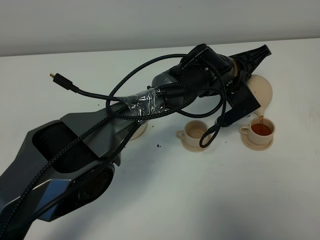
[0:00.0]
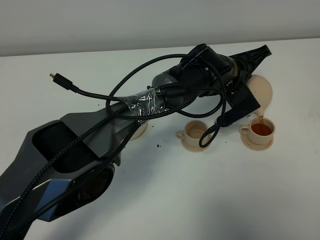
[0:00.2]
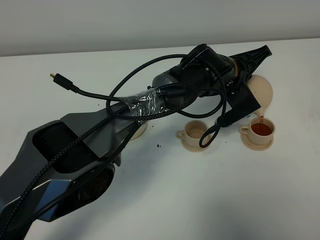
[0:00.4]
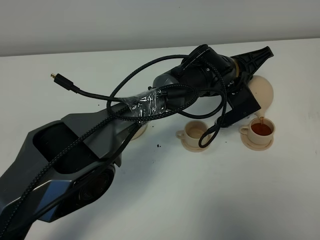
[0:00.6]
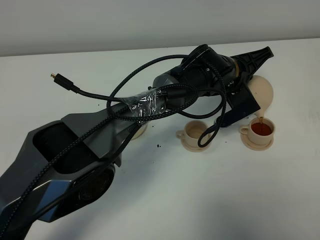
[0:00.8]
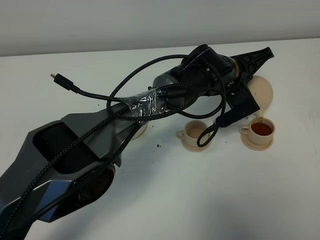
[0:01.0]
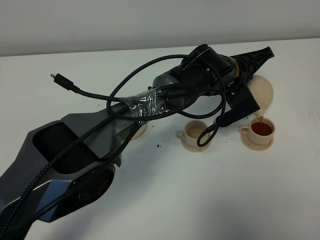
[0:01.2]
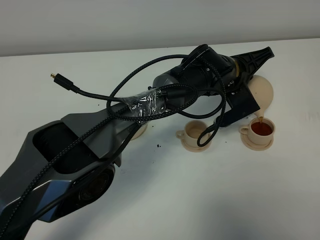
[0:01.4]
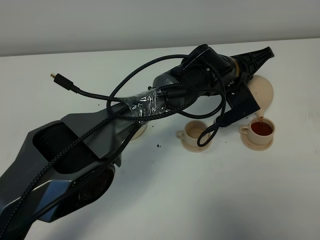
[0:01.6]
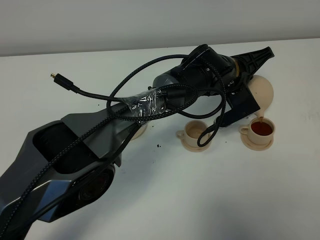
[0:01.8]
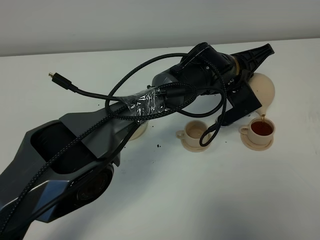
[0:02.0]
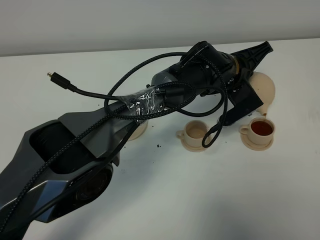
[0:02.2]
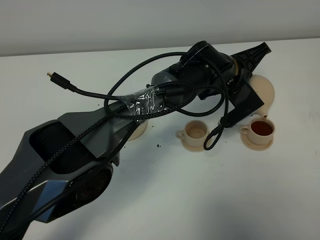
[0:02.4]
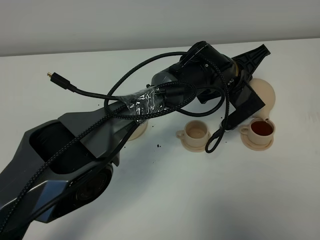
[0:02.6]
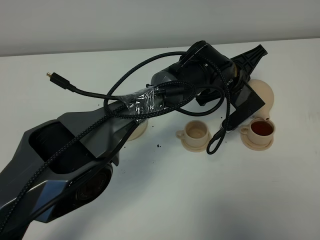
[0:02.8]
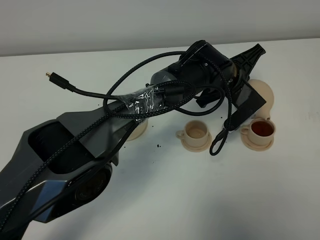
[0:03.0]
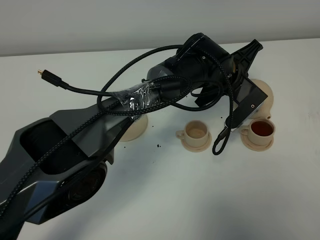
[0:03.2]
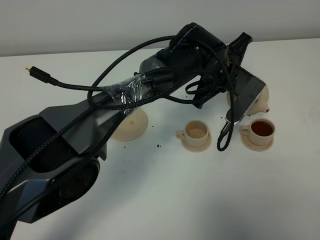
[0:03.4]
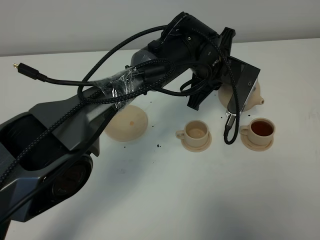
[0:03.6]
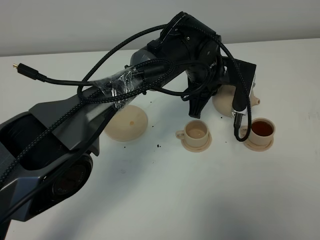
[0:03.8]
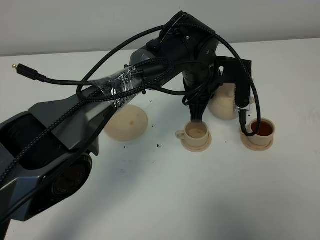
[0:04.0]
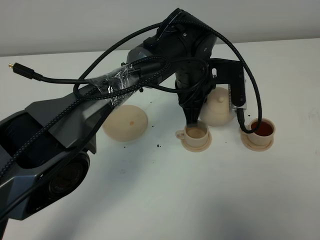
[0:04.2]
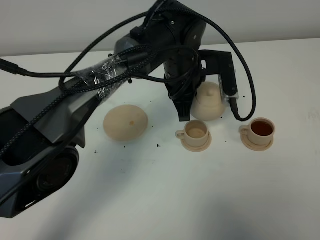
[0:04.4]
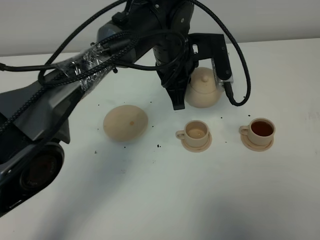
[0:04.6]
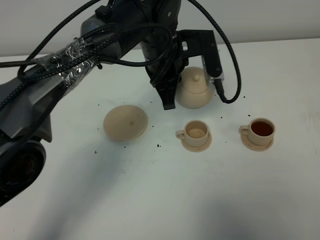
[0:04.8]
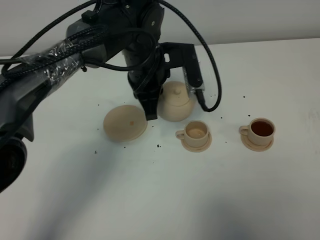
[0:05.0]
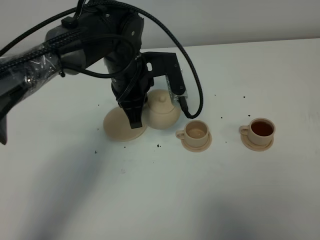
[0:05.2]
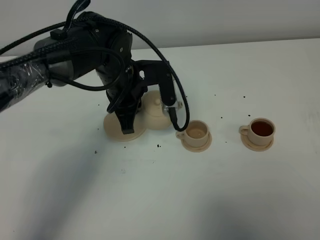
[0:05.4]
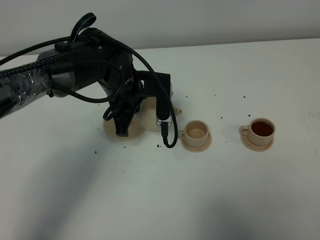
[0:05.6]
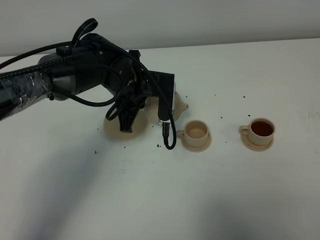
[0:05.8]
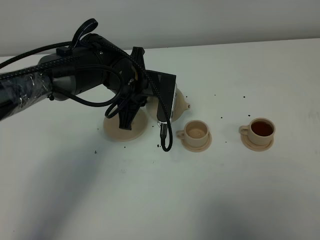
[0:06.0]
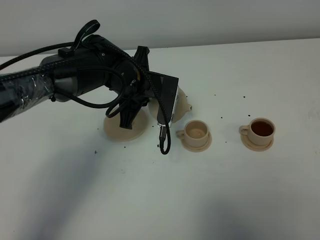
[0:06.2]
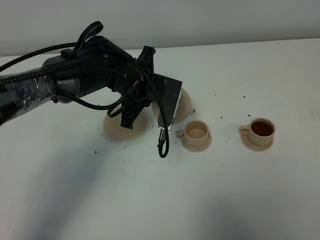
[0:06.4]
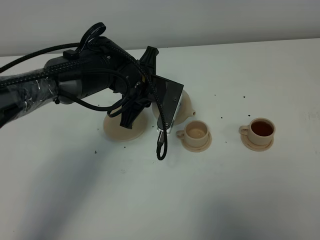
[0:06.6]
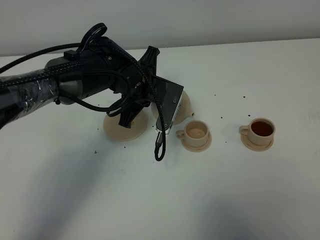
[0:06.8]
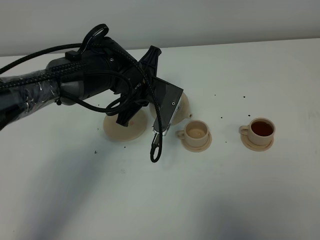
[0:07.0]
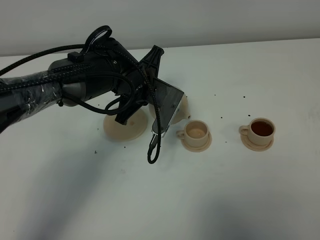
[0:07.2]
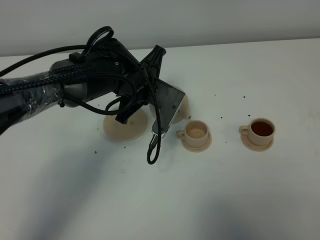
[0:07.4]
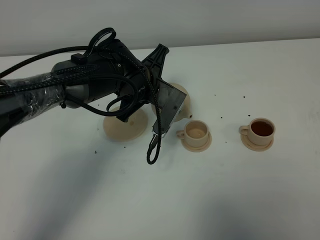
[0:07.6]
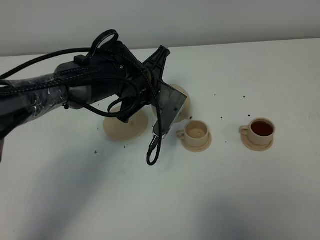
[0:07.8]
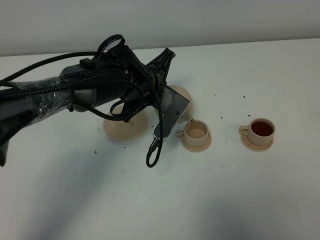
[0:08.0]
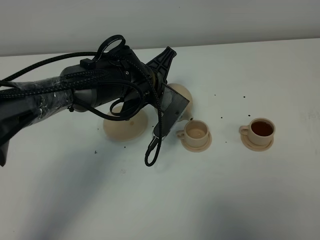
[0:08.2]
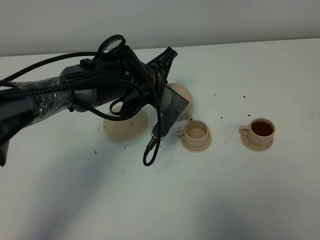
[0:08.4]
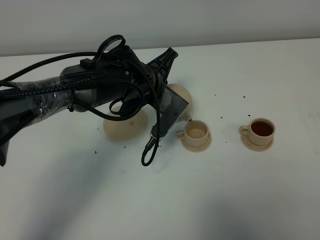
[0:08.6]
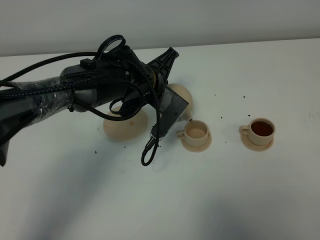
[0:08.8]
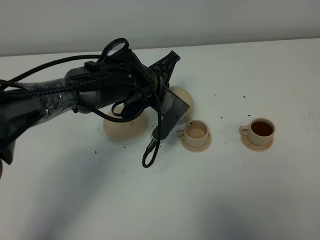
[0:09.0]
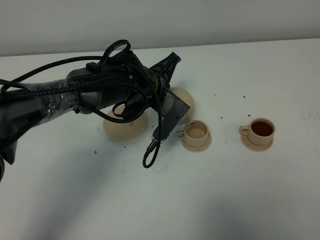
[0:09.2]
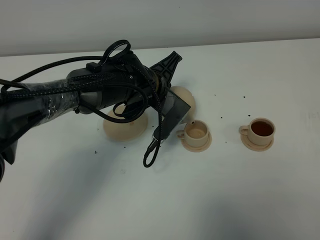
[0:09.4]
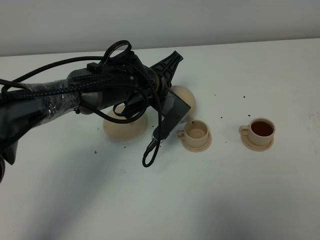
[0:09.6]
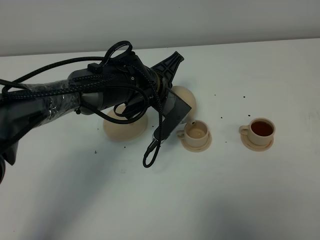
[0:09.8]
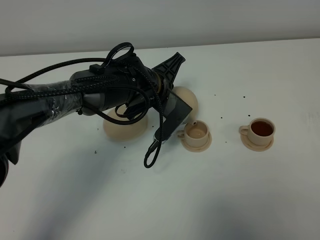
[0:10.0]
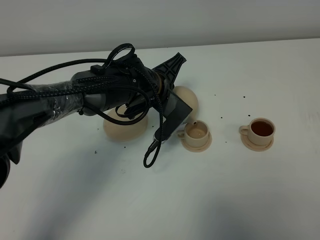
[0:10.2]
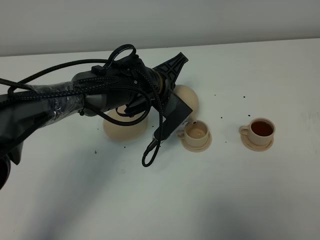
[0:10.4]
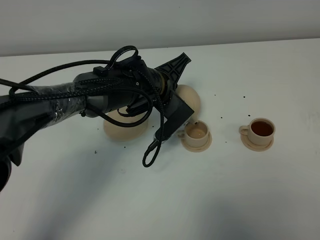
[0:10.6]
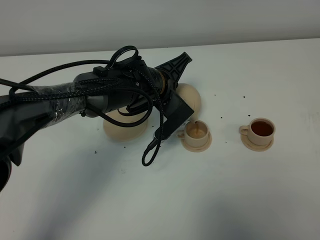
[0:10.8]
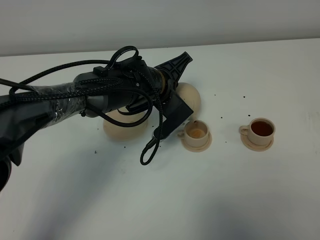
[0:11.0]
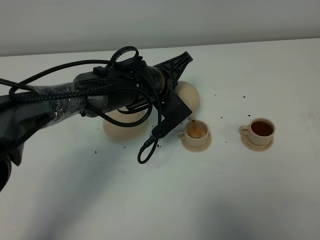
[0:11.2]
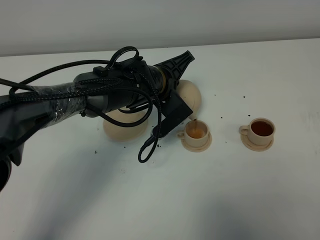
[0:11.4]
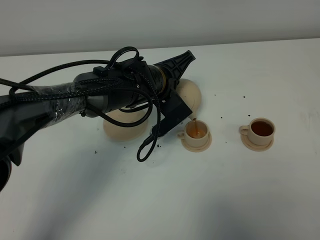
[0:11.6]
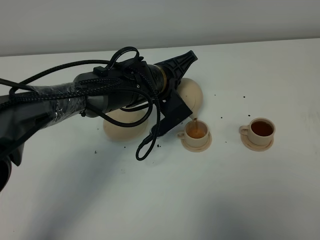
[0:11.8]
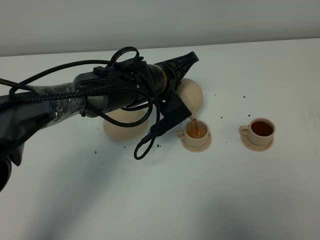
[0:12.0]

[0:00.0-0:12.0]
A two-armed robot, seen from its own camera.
Task of the whole recording: grasp the brown teapot and pour the tea into the two brown teacups one by one, put the brown teapot back in its original place.
Step, 0:00.0 to 0:02.6: Pour tea into the teacup with the left gripper.
0:00.0 to 0:01.6: Both grippers stay about where they are.
0:01.6 to 0:03.0: There are only small adjustments of the grippers.
0:03.0 to 0:04.4: The left gripper is displaced to the left by approximately 10 cm.
0:04.4 to 0:06.0: The left gripper shifts some 10 cm to the left.
0:07.6 to 0:10.4: The grippers move only a little.
0:10.4 to 0:12.0: The grippers move only a little.

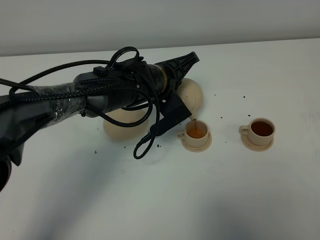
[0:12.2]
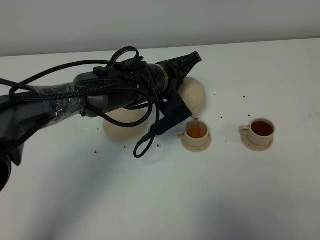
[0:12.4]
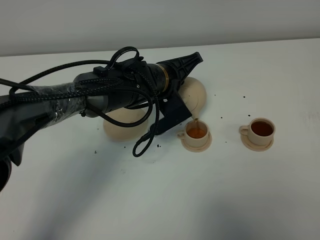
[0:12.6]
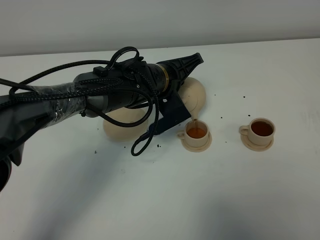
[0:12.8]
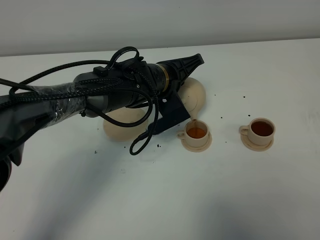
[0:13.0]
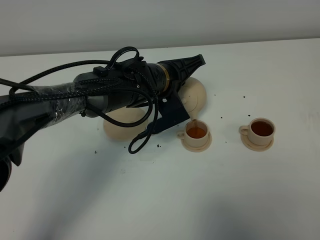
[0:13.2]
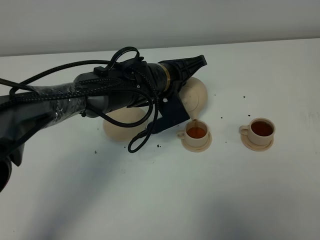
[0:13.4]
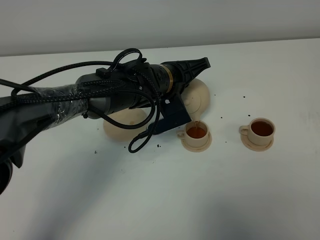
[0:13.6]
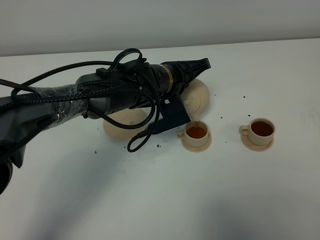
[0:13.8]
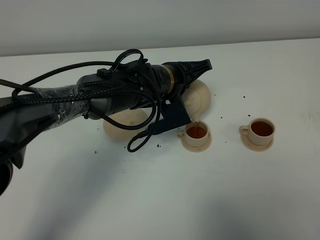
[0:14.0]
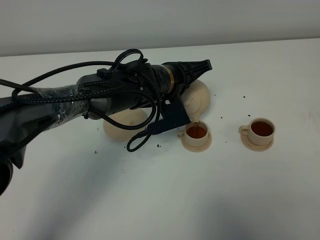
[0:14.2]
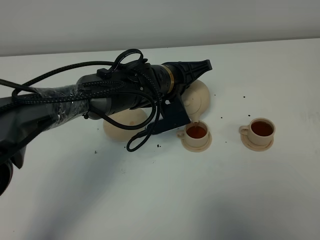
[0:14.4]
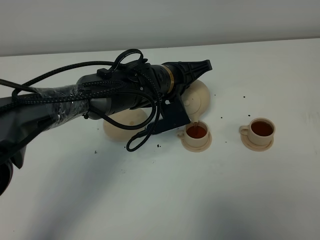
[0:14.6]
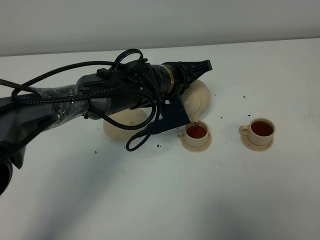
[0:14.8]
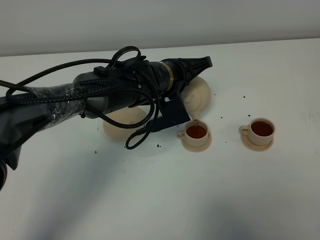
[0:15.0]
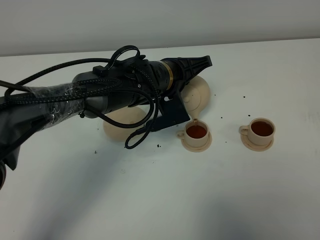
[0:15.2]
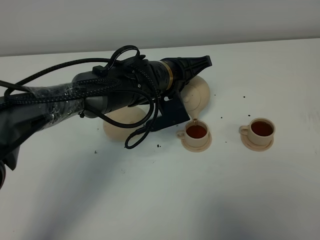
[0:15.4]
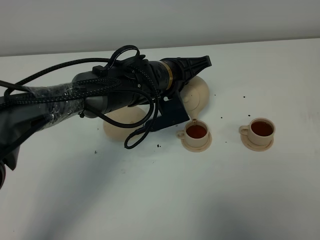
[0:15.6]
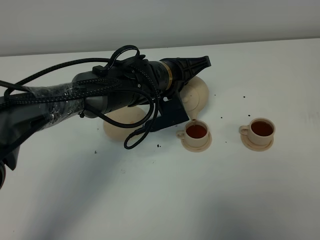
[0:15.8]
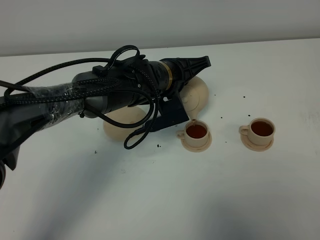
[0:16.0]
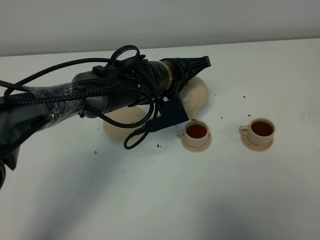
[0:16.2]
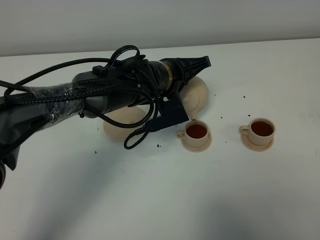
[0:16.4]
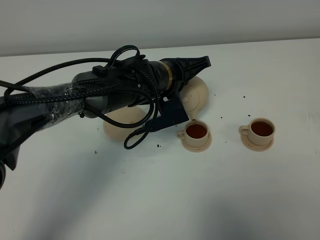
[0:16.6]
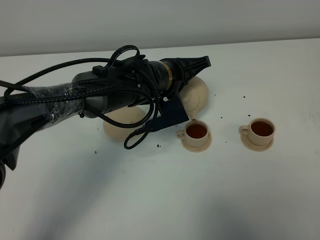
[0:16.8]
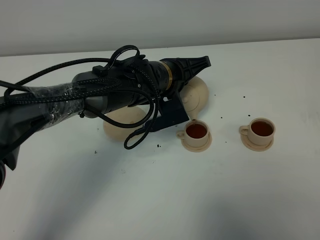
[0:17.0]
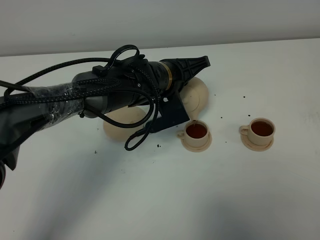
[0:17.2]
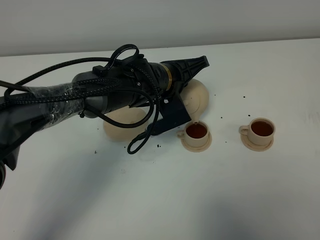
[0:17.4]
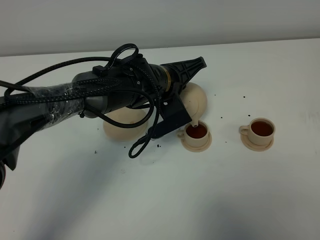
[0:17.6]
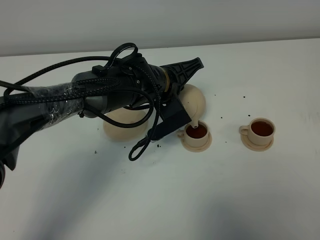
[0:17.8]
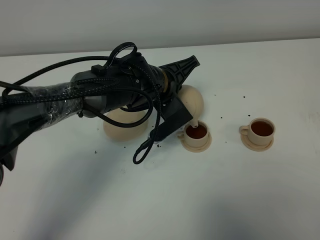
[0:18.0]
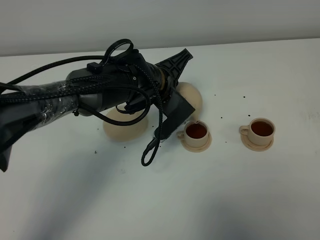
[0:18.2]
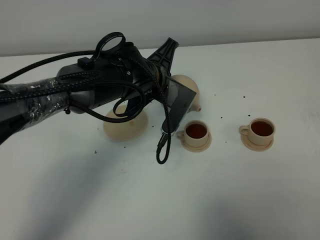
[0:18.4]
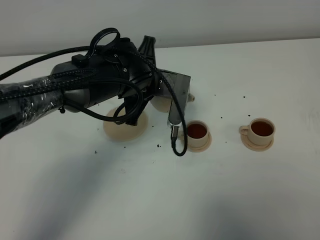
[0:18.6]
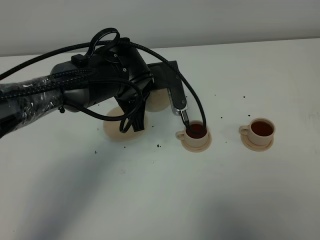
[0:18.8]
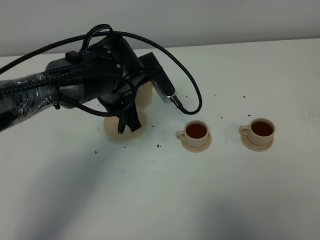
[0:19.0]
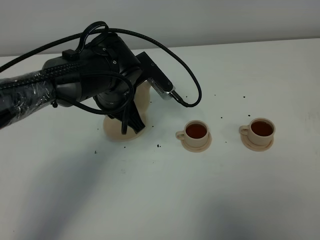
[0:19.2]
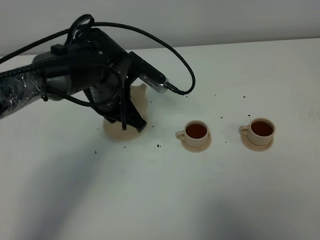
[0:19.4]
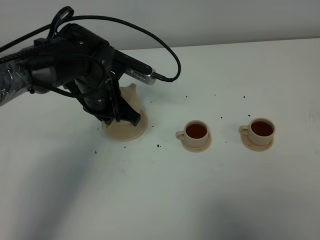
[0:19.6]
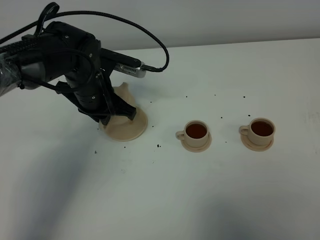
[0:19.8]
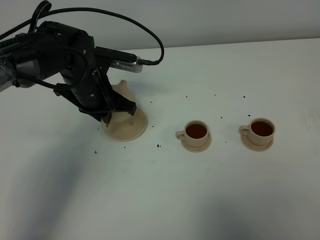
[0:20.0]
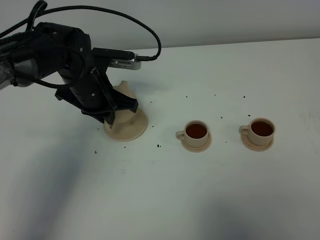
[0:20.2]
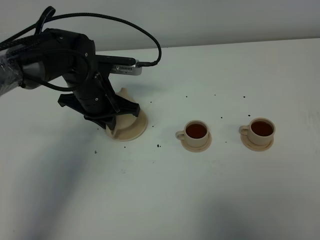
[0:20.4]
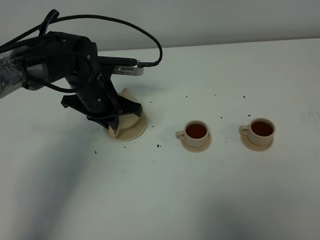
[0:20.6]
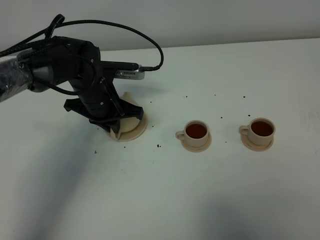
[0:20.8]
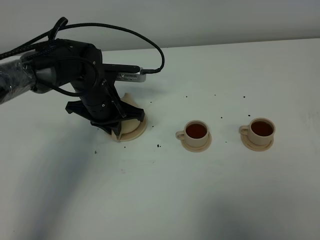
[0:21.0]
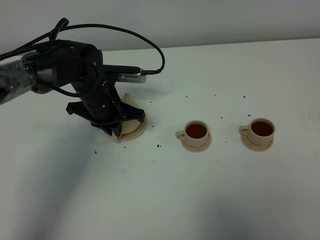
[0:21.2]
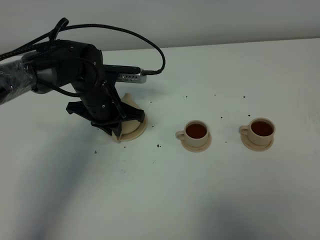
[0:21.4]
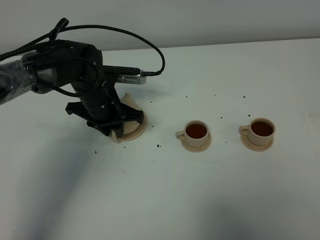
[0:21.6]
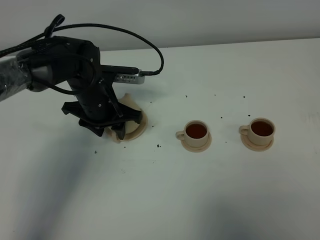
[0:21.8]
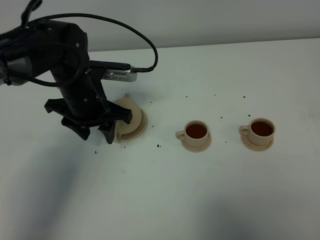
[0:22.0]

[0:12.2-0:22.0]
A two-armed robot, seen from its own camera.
Task of the whole recording: grasp the brown teapot and pour the tea into the two brown teacups one by one, put the brown teapot back in its original place.
Step, 0:12.2 to 0:18.4: Pour tea into the teacup with the left gripper.
0:12.2 to 0:13.6: The grippers move only a little.
0:13.6 to 0:16.4: Neither gripper changes place.
0:16.4 to 0:17.8: The grippers stay close to where they were, moving slightly.
0:17.8 to 0:19.2: The left gripper is displaced to the left by roughly 5 cm.
0:19.2 to 0:20.6: The left gripper is displaced to the left by about 5 cm.
0:20.6 to 0:22.0: The left gripper changes place by roughly 5 cm, and opens.
